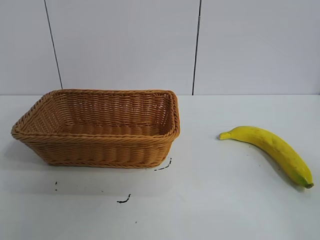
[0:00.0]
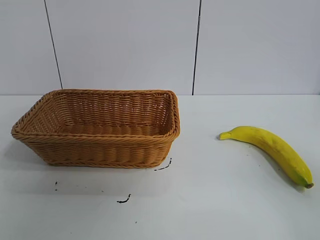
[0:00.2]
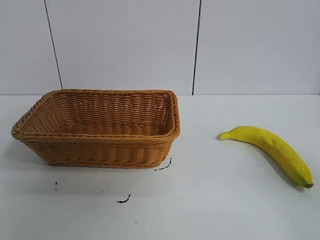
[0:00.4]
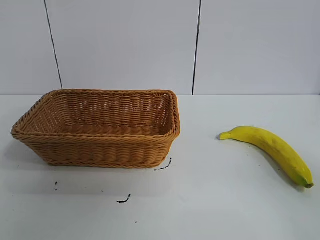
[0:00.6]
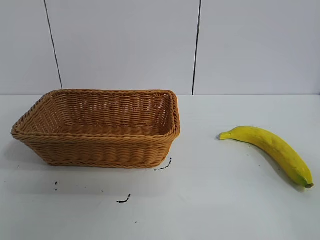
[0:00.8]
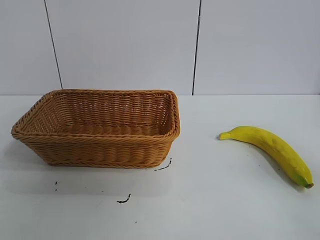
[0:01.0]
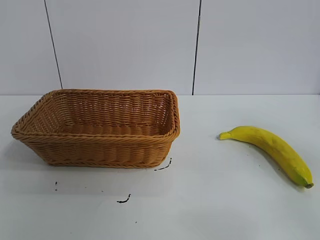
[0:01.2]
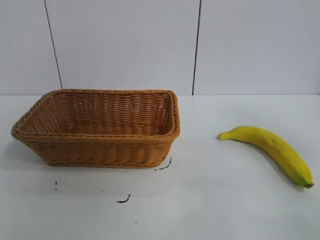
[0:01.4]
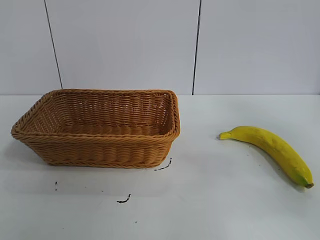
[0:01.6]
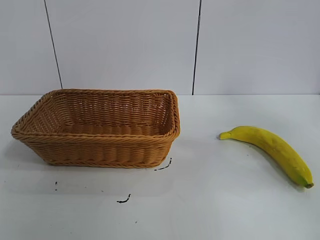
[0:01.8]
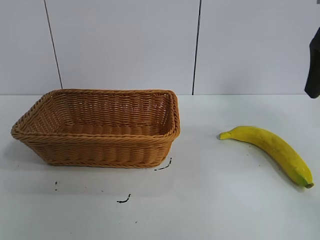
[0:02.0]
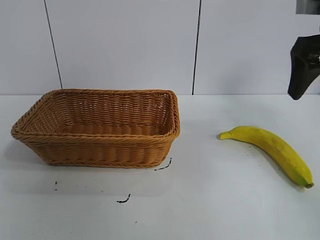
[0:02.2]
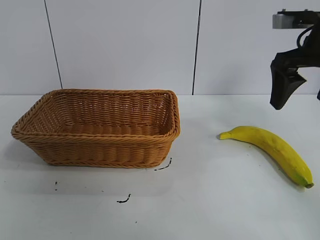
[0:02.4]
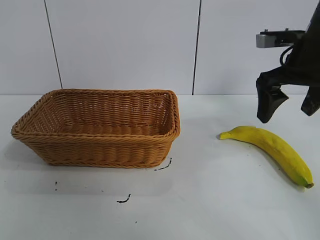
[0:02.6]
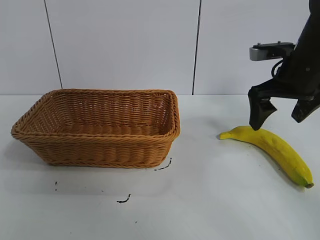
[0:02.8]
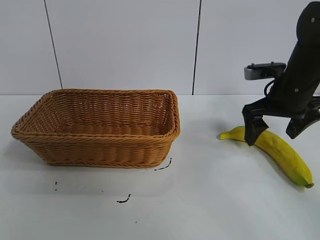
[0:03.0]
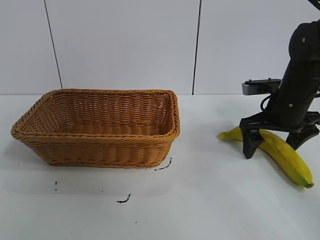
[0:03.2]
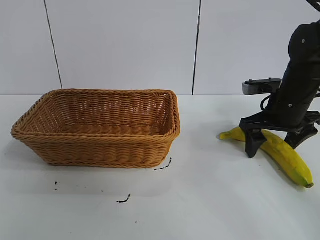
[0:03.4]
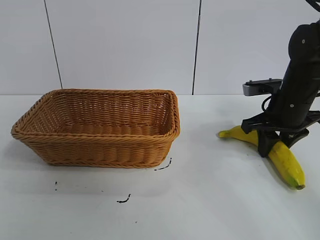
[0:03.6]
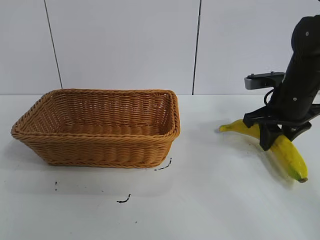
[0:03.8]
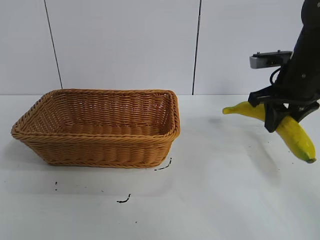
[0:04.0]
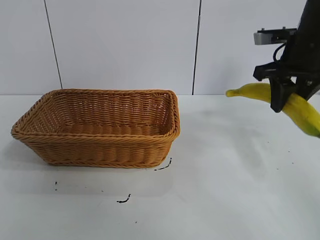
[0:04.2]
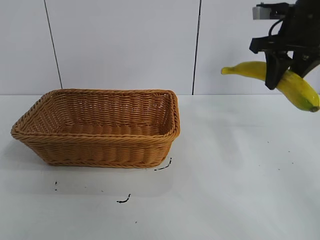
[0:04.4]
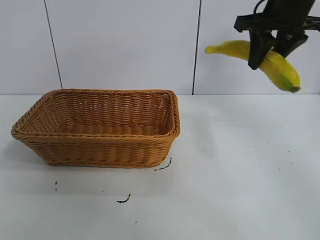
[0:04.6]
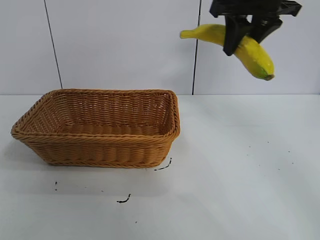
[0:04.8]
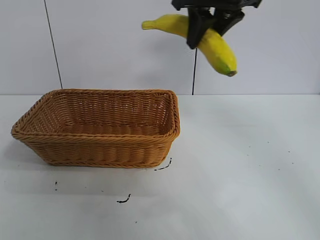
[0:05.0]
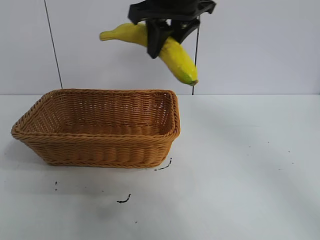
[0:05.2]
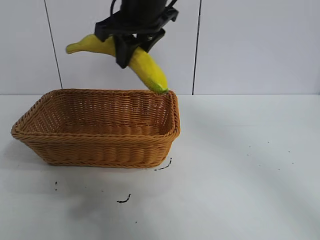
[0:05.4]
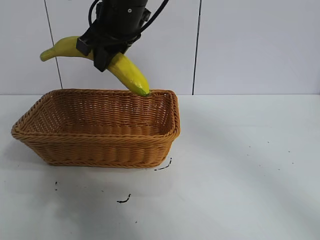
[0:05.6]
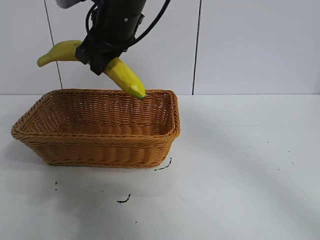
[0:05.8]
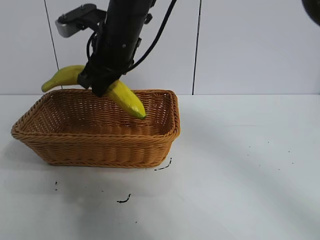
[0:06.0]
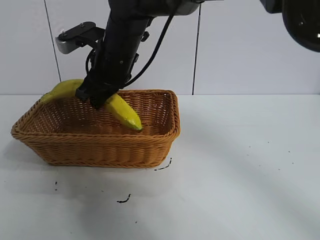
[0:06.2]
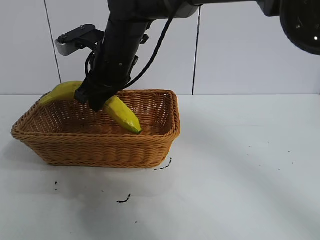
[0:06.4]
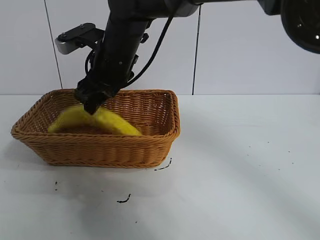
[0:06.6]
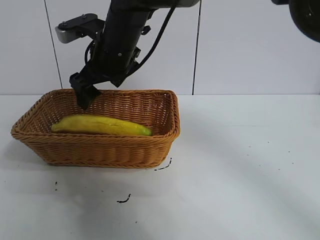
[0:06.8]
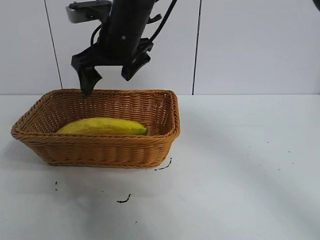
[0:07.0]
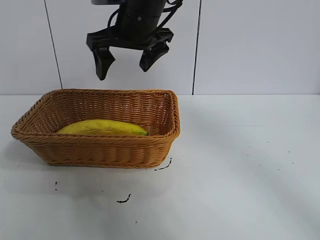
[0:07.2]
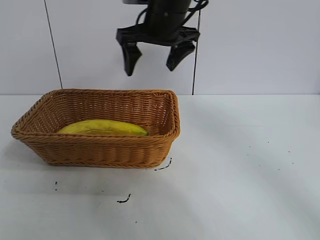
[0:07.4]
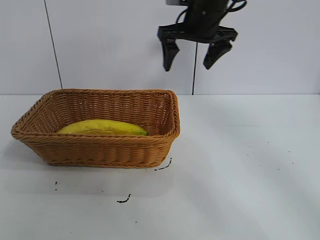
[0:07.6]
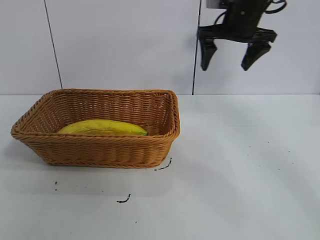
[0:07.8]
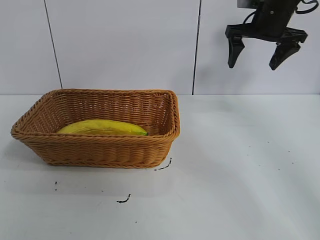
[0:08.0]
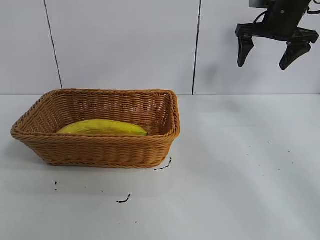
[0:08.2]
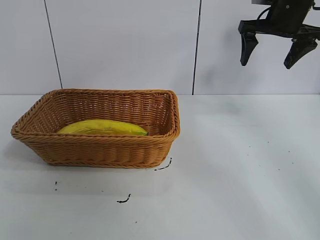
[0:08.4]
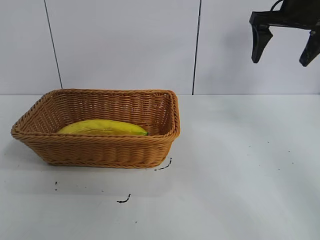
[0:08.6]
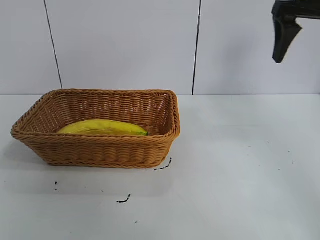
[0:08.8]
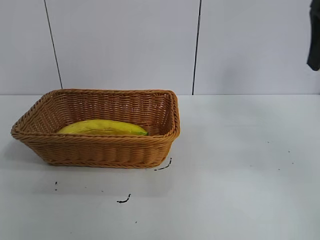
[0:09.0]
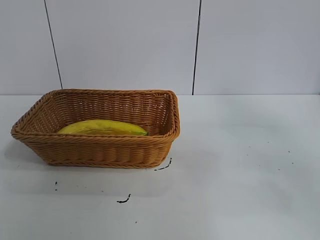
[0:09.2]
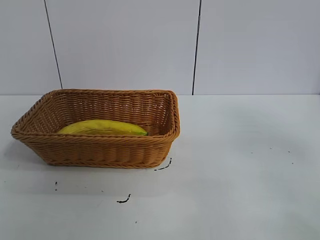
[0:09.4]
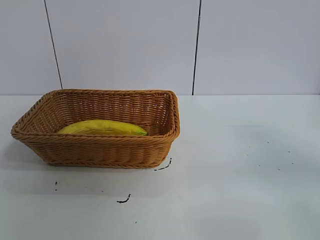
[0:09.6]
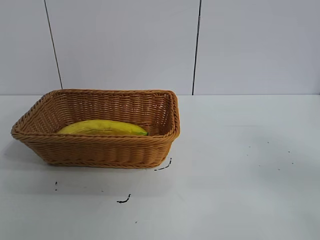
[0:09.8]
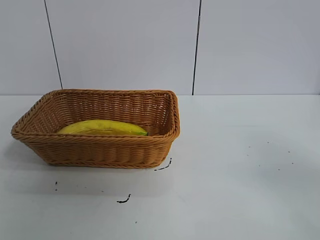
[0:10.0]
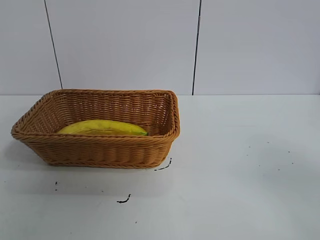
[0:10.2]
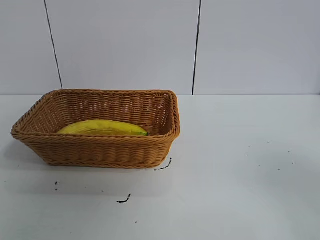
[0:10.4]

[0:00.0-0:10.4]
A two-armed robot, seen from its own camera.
Task of the whole recording: pick up the banana and put it into the basket.
Step, 0:00.8 to 0:03.6: Grasp the banana with right gripper.
Step, 0:03.8 to 0:07.0: Place the banana in the basket with right gripper.

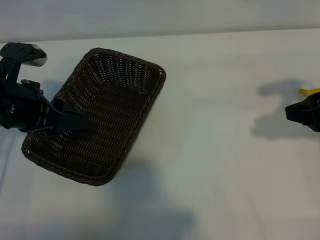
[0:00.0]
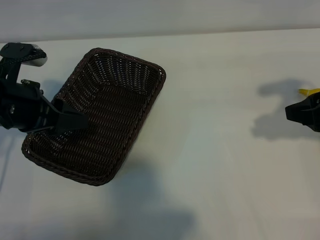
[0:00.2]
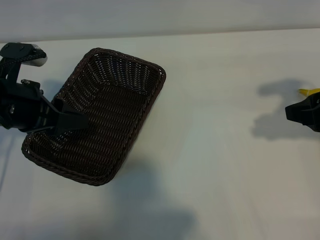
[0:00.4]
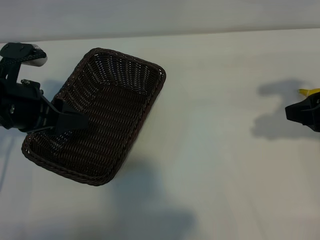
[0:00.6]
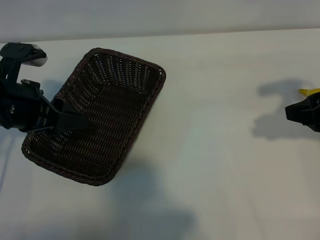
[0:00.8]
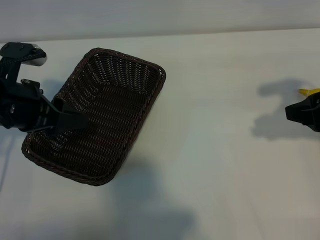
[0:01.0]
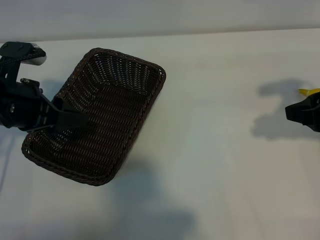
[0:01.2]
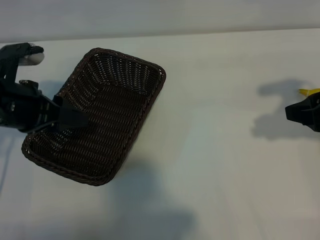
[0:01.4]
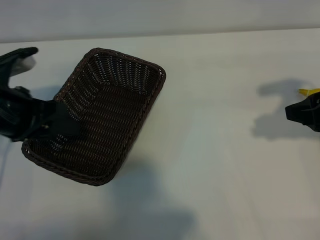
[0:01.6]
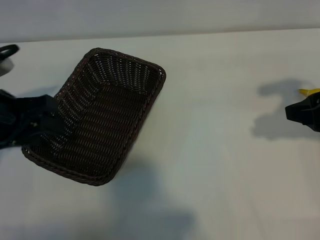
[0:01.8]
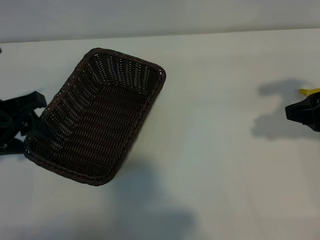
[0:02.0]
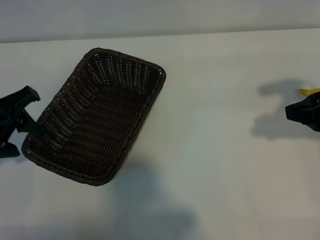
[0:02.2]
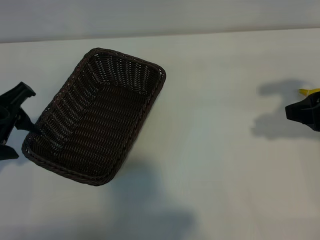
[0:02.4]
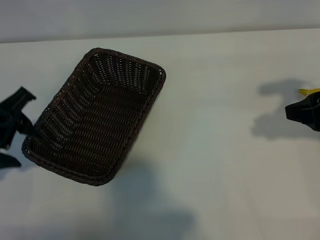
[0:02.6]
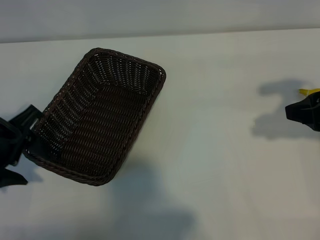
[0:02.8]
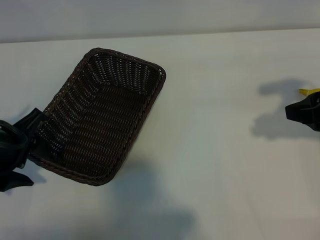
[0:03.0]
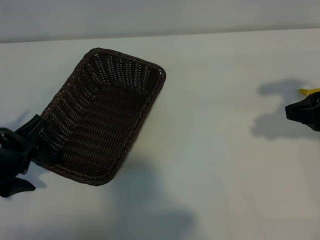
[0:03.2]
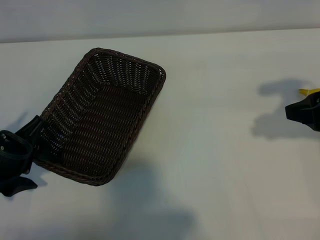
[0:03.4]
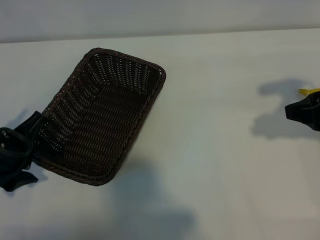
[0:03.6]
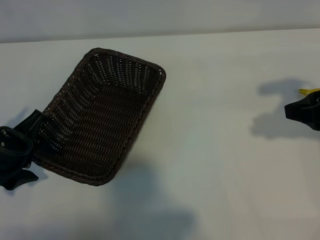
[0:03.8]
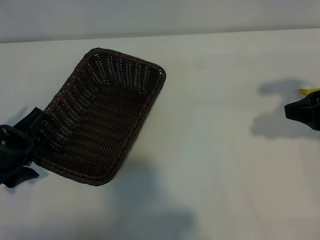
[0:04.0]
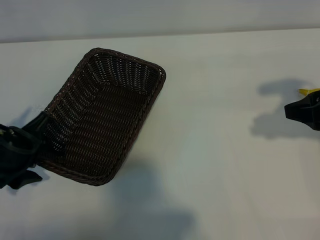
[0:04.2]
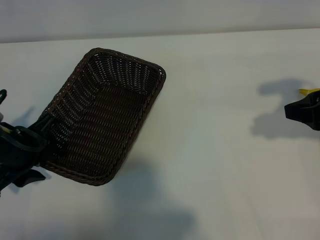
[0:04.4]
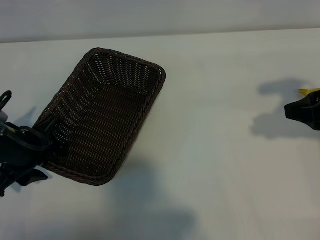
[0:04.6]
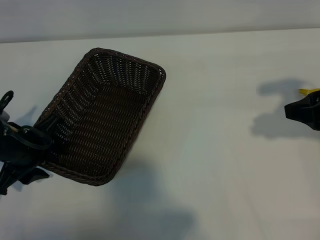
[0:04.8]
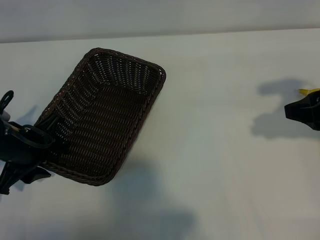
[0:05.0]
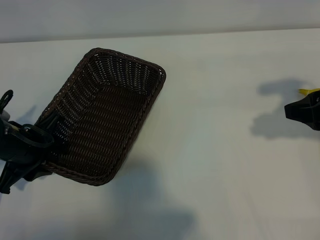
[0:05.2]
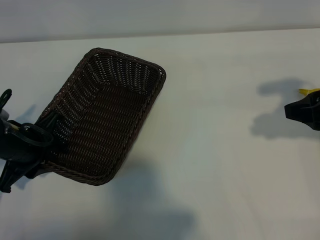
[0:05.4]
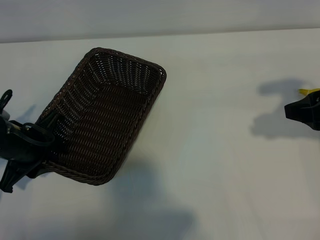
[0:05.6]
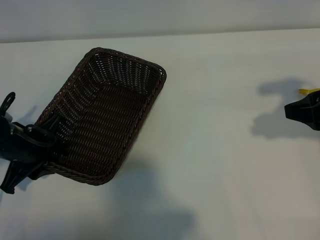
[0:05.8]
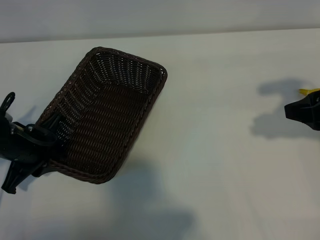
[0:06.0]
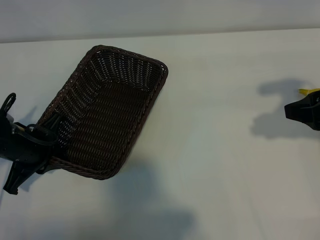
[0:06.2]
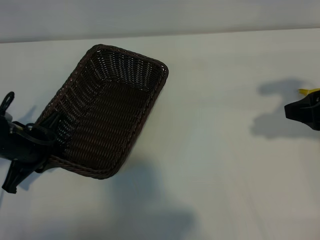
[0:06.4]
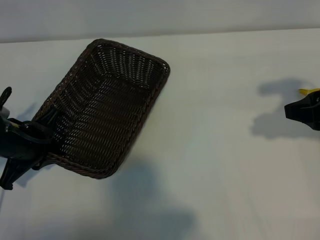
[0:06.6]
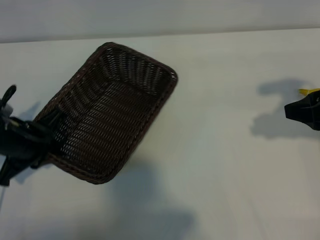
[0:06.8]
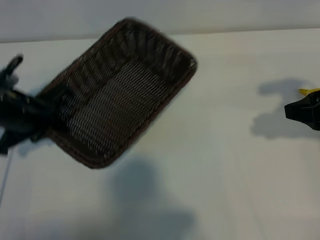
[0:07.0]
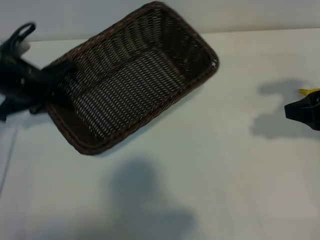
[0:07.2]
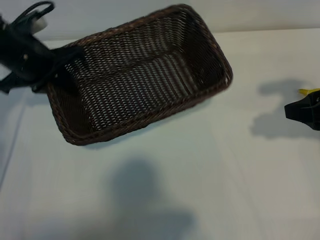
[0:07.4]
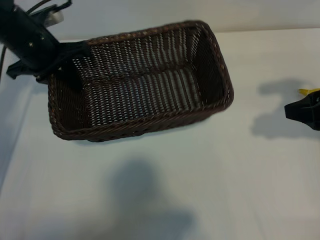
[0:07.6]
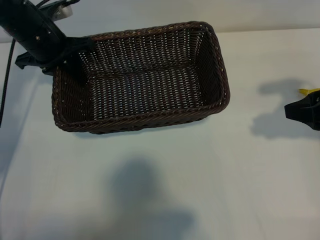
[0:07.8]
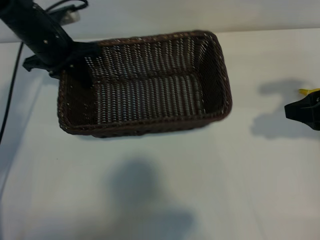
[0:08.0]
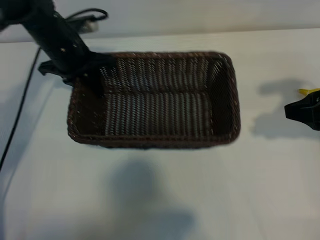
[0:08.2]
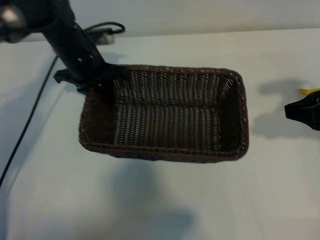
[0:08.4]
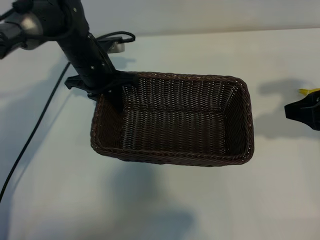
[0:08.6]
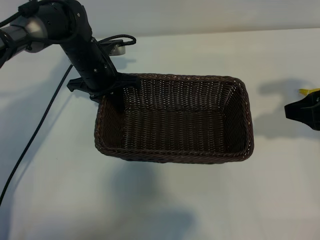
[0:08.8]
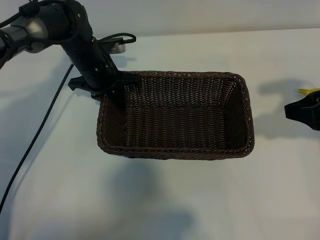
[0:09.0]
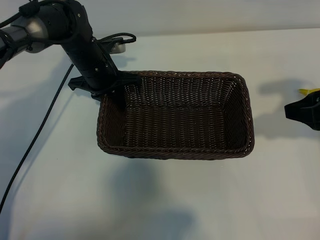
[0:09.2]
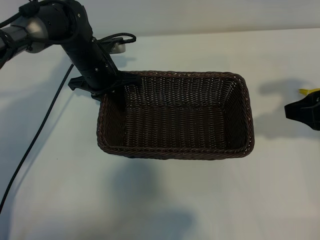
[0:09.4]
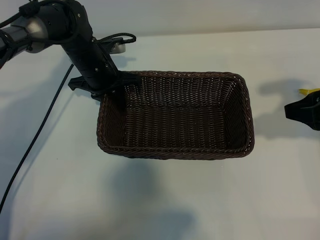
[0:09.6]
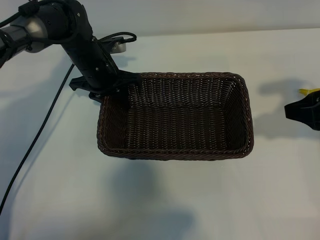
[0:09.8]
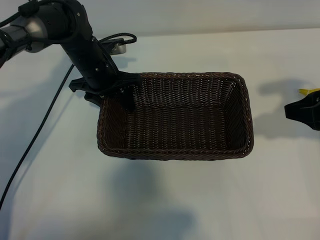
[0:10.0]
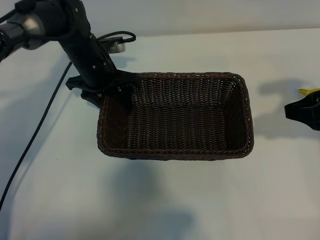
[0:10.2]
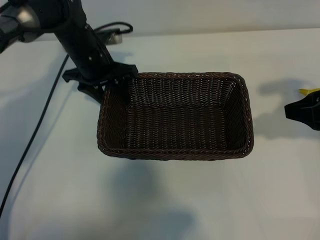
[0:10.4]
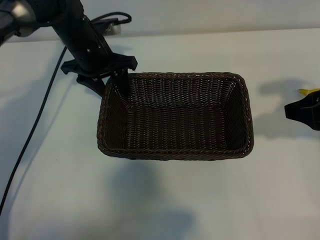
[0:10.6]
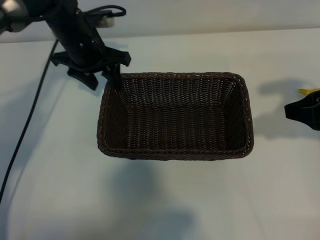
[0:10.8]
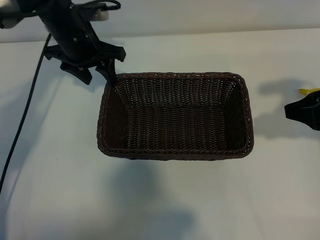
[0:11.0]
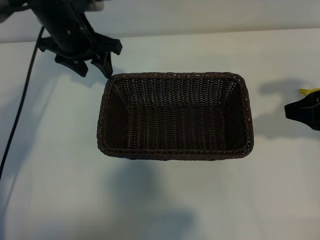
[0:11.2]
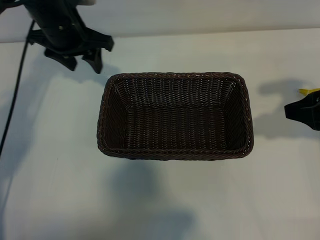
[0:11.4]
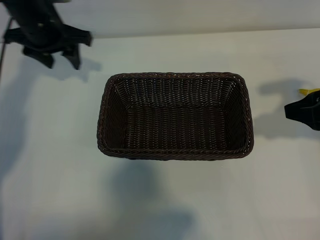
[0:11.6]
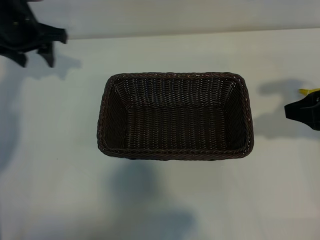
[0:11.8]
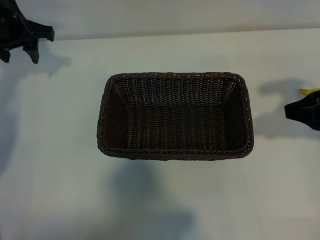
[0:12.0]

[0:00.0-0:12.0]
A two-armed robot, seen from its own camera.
Task of the whole recording: pick up the banana and put it into the basket.
Step, 0:01.0 to 0:06.2: Grasp the basket with the left gripper.
Step, 0:06.6 to 0:10.4: Place the basket in the center of the table with the left gripper.
